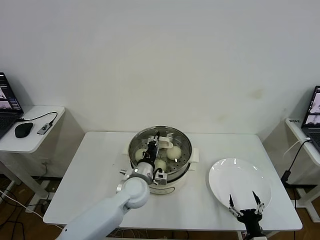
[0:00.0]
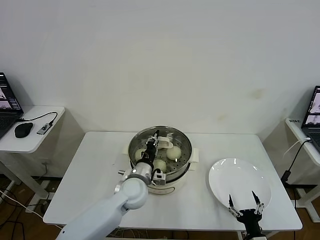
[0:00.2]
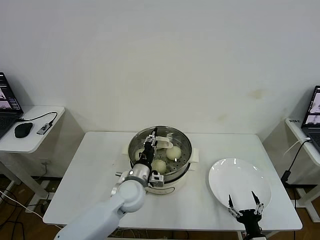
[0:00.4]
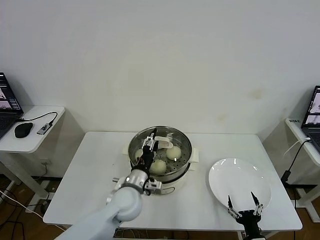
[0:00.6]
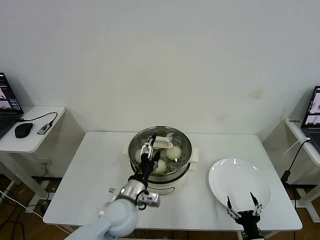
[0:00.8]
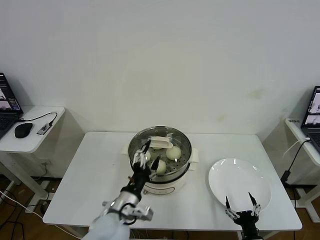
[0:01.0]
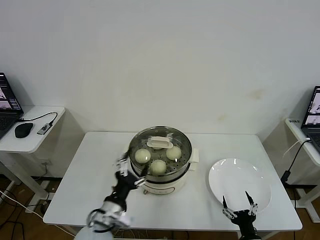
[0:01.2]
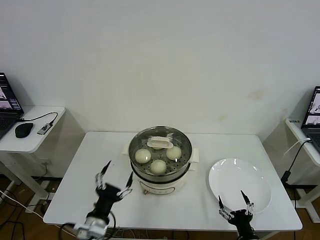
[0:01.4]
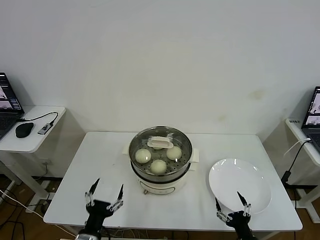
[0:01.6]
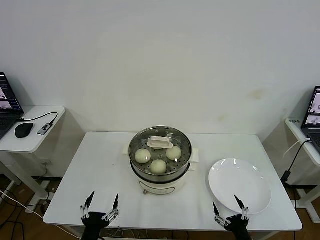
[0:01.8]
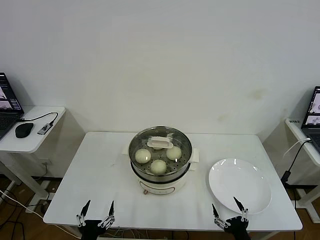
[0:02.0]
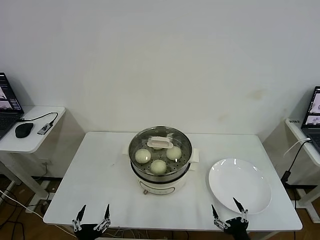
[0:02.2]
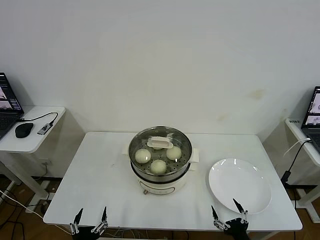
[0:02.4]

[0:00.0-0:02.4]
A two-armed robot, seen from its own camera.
Task of the whole recording: take steamed baozi put them in steamer then cover it.
0:00.0 to 0:01.2: The left gripper shifts about 15 cm backward and to the left, and opens up.
0:01.2 to 0:02.4: The left gripper shifts about 20 cm backward, downward and to the left.
